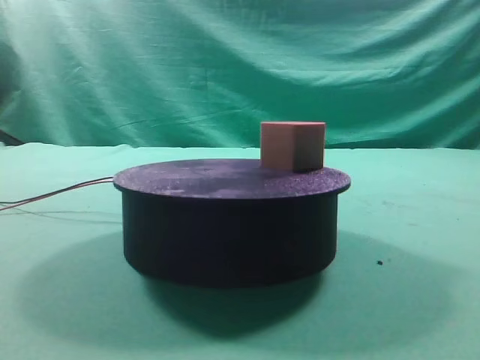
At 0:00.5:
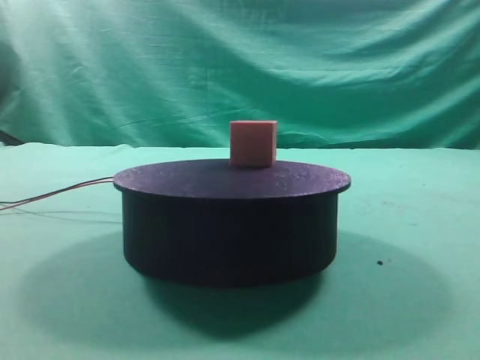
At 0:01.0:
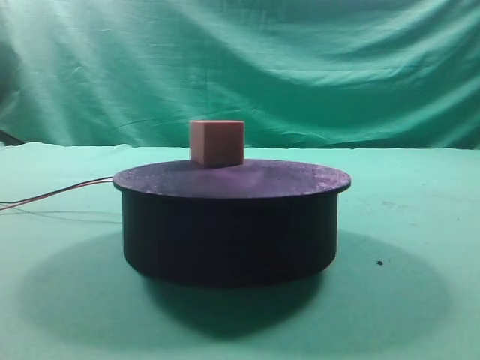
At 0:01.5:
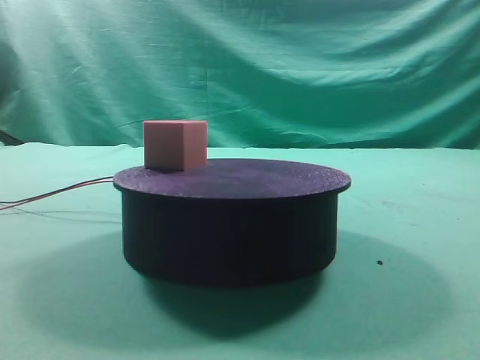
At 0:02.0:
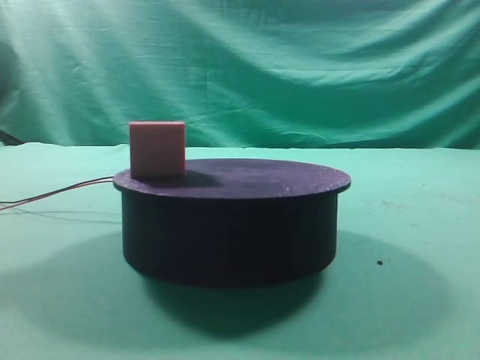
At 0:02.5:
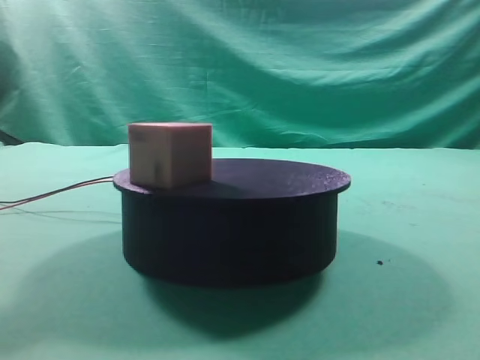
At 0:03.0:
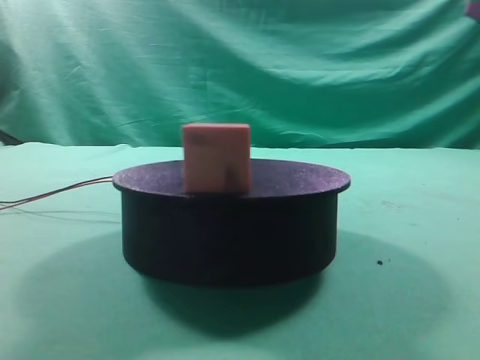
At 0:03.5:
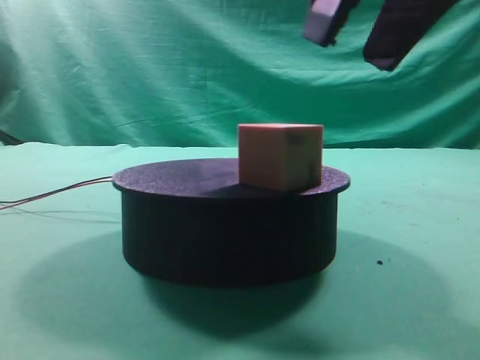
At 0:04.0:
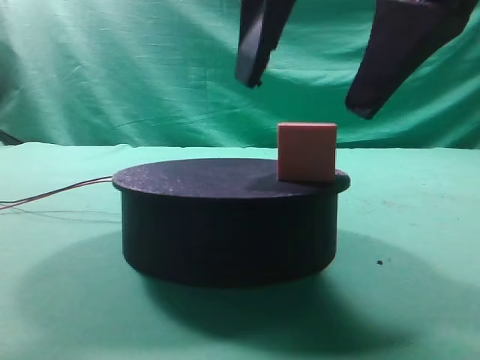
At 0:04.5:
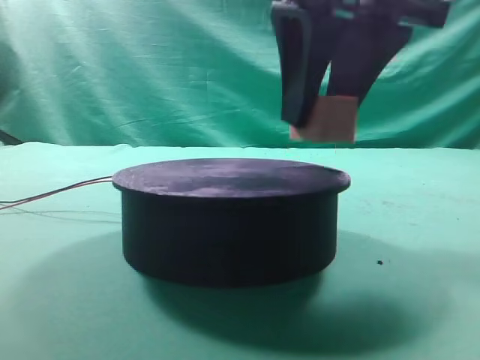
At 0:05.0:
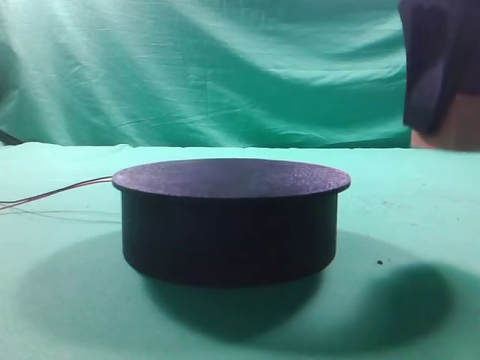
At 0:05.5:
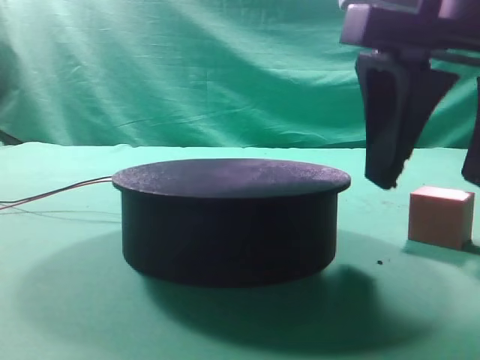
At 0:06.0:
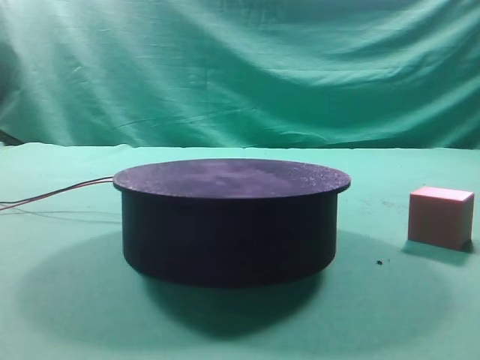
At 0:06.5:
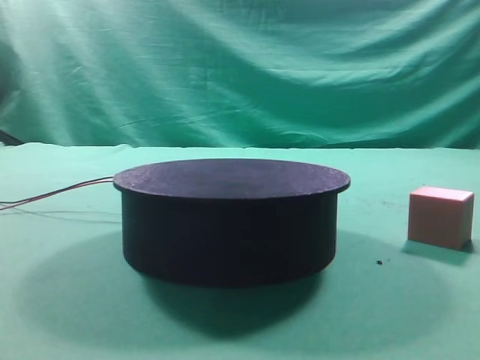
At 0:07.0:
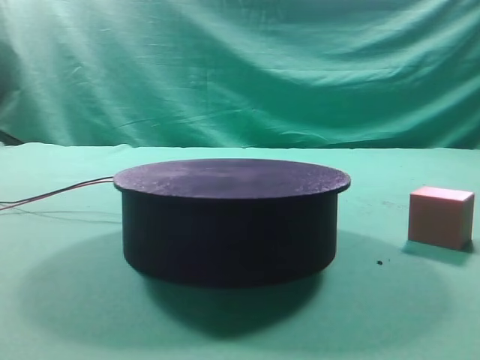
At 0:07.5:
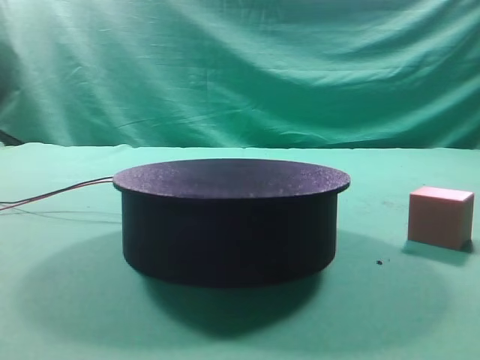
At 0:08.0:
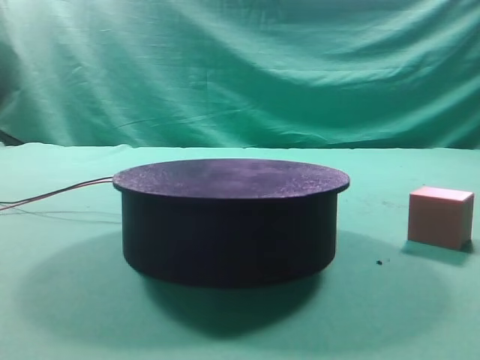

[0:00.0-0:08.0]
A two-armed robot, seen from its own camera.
Task of the whole recording: grasp the rotating cube-shaped block on the turntable and place it on the table.
Step, 0:00.0 to 0:04.5: Grasp the rotating cube-shaped block on the turntable.
Step, 0:05.0 to 0:05.5: Place the cube on the desk.
